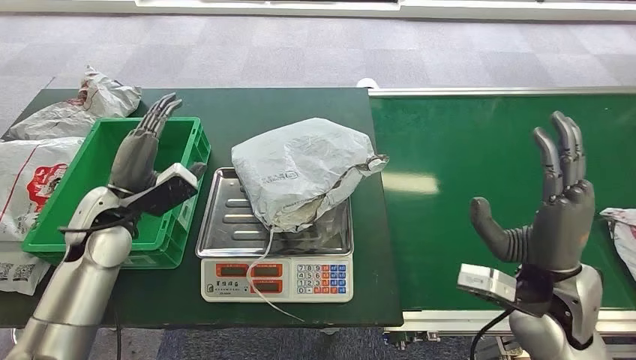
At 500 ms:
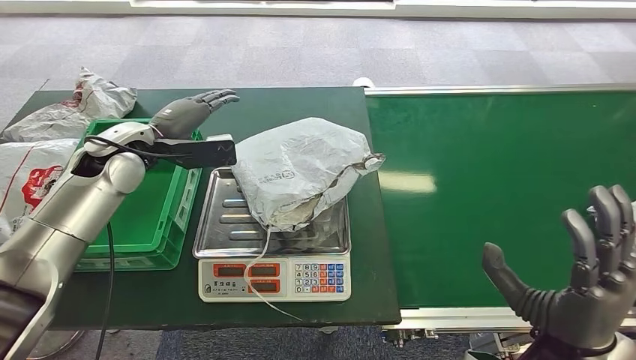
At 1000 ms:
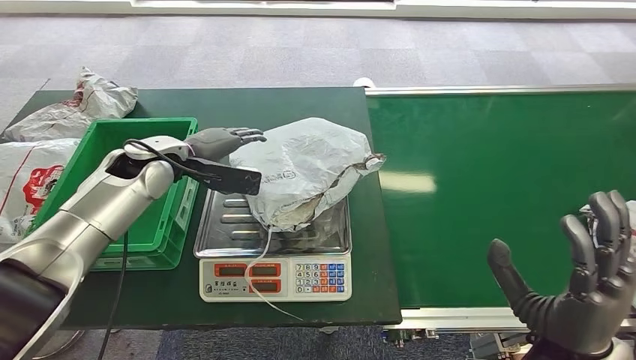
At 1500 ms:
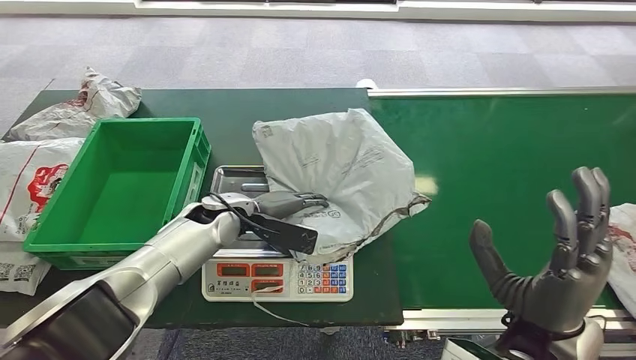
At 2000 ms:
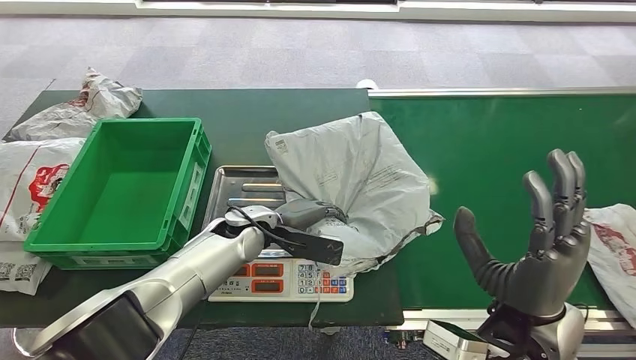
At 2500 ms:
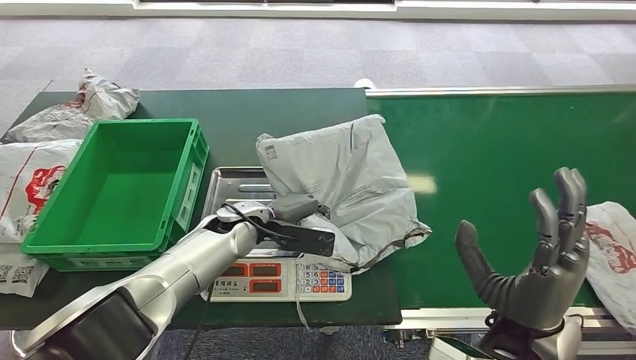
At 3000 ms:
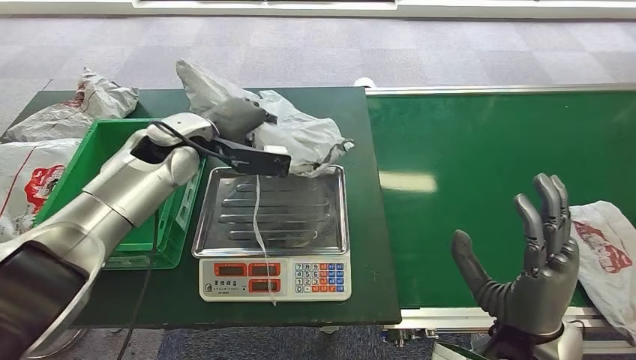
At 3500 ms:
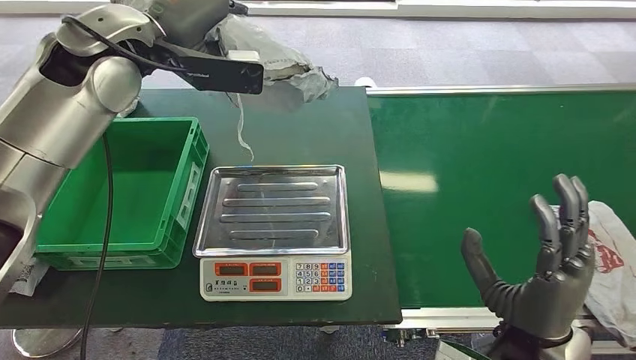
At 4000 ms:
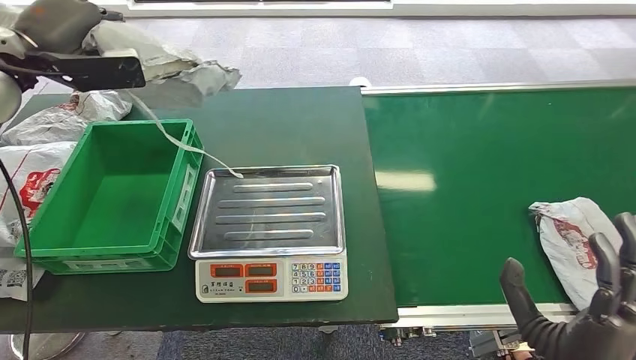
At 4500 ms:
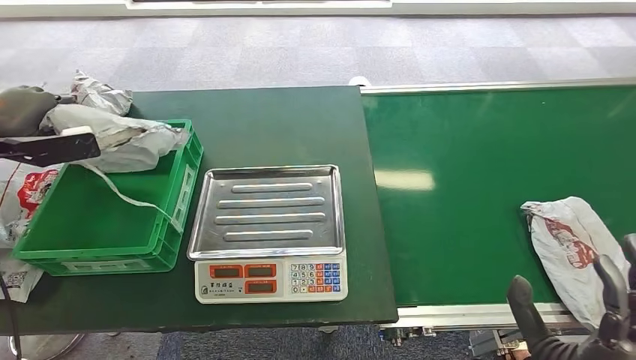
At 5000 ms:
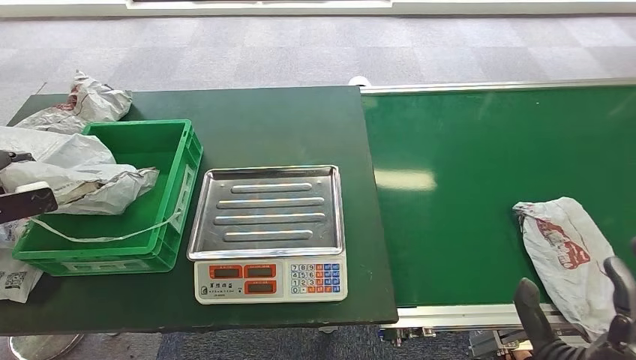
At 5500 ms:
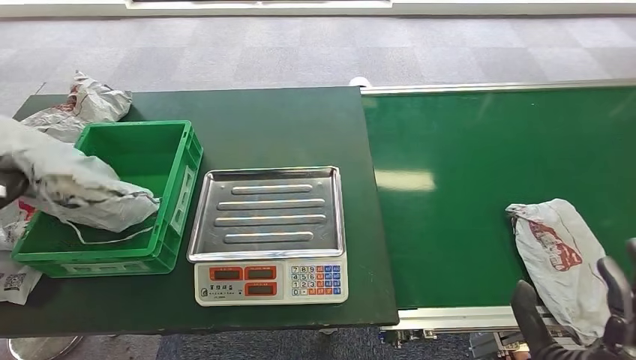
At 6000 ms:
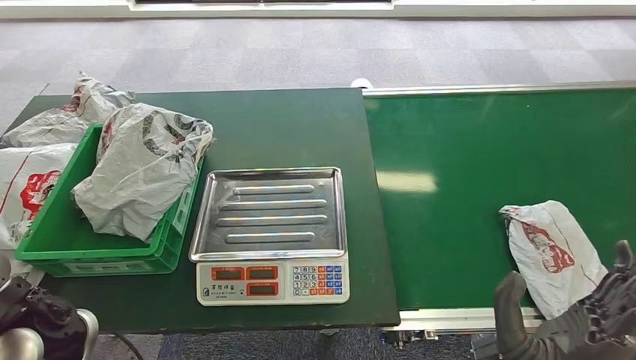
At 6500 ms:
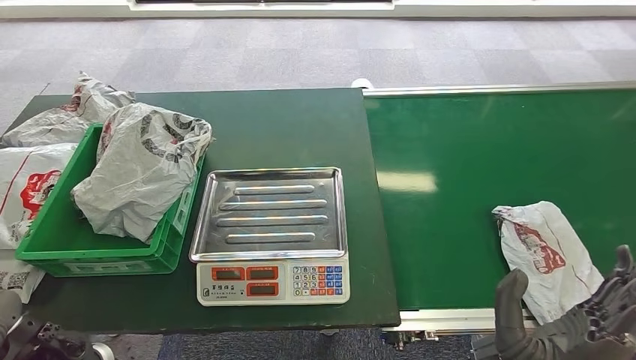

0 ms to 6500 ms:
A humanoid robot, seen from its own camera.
Step, 0 ms to 4000 ms: Pick up the package from the inbound machine.
Step, 4500 ms to 6500 ms: Place the package into the parcel locker.
